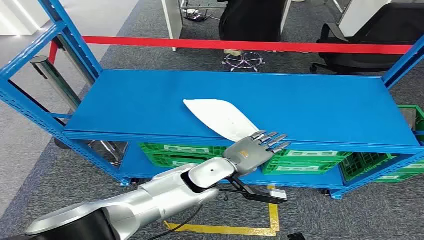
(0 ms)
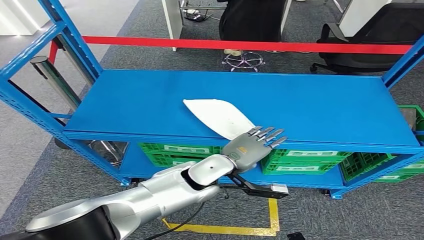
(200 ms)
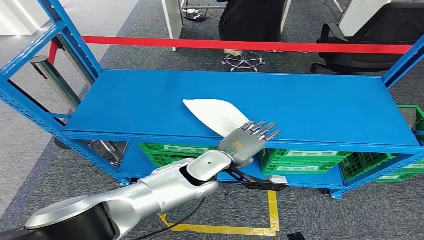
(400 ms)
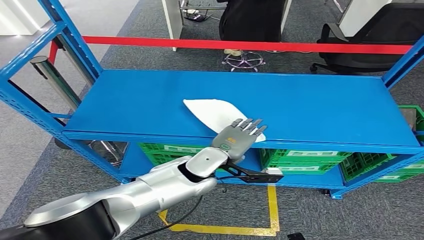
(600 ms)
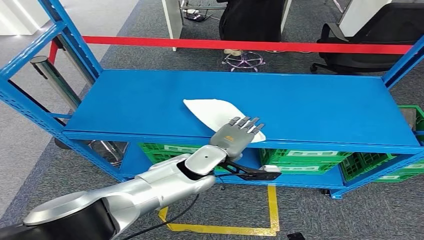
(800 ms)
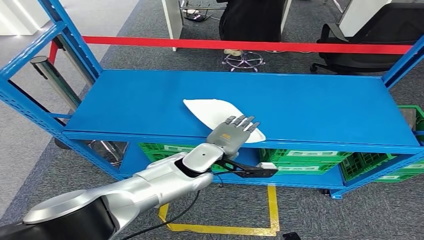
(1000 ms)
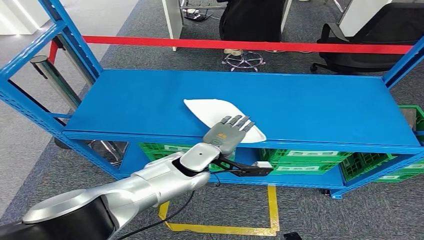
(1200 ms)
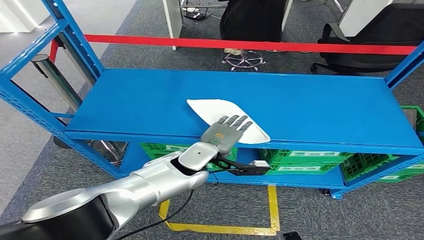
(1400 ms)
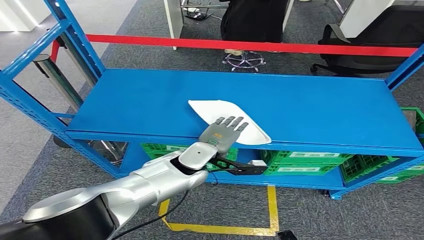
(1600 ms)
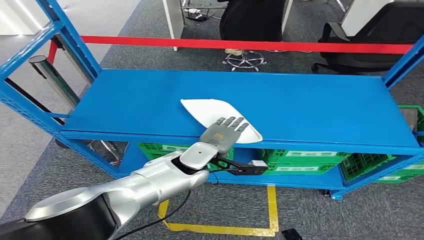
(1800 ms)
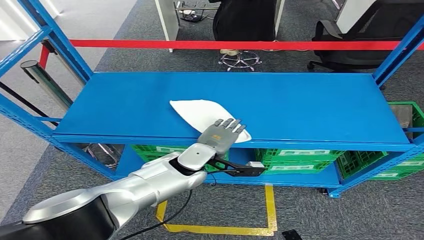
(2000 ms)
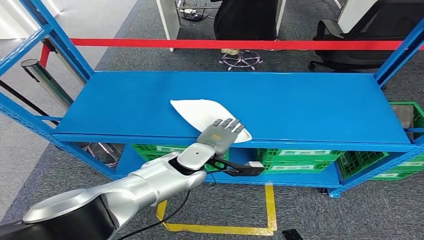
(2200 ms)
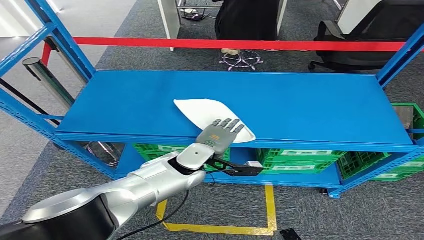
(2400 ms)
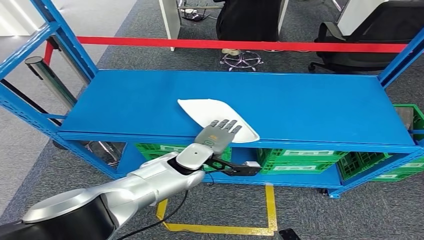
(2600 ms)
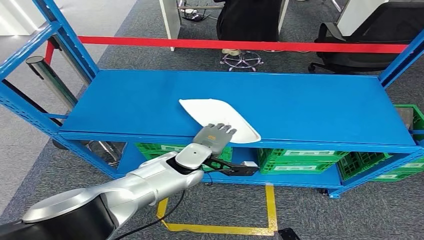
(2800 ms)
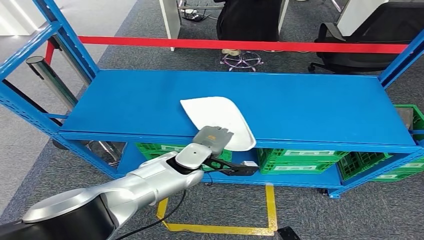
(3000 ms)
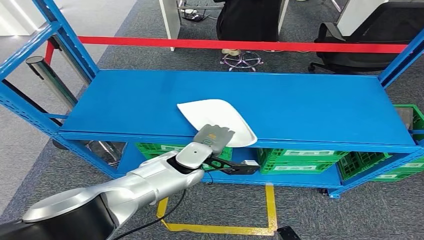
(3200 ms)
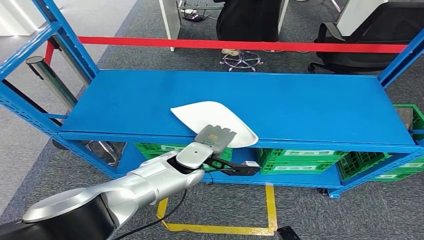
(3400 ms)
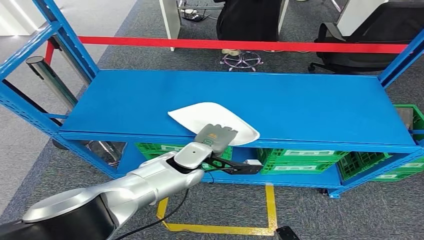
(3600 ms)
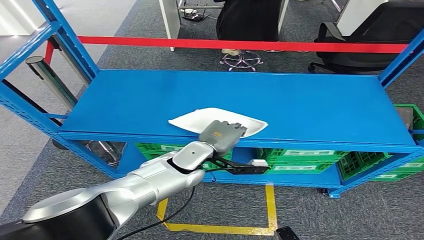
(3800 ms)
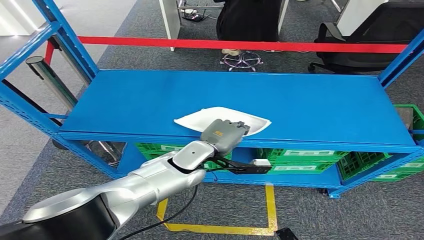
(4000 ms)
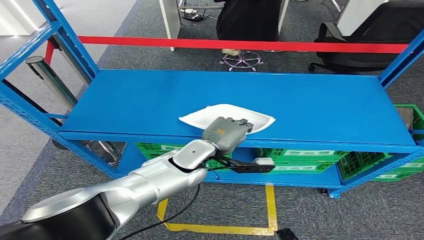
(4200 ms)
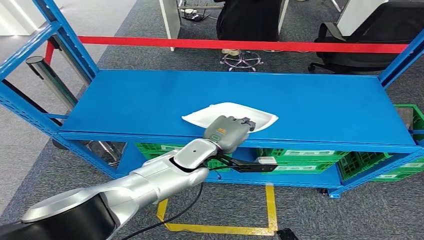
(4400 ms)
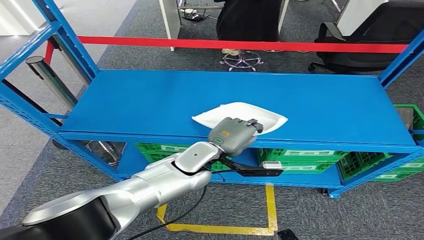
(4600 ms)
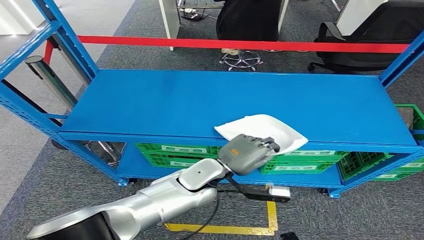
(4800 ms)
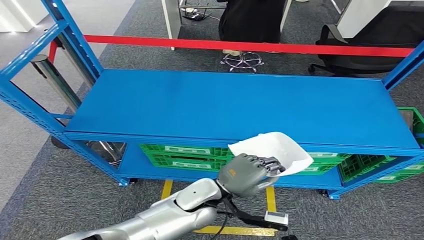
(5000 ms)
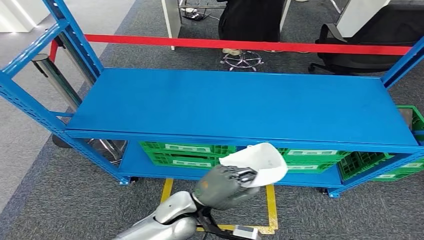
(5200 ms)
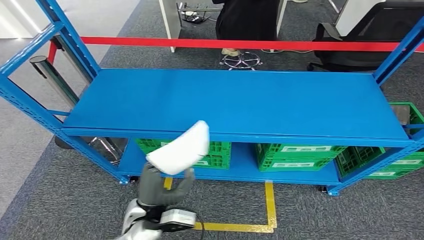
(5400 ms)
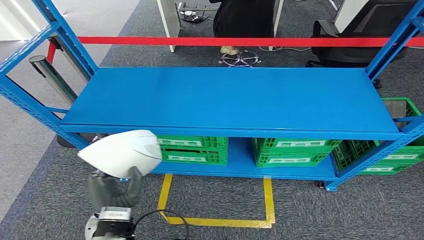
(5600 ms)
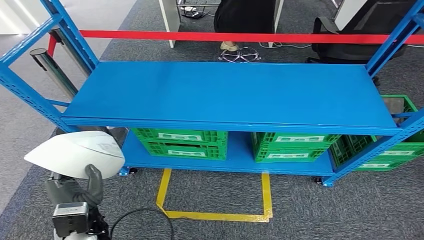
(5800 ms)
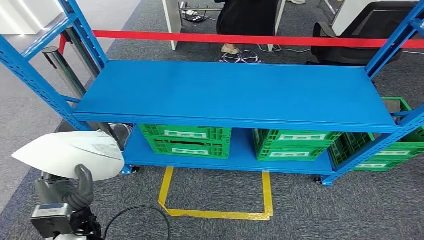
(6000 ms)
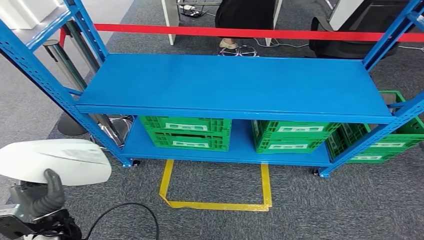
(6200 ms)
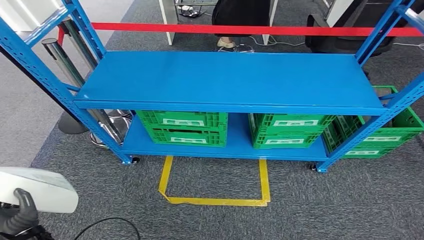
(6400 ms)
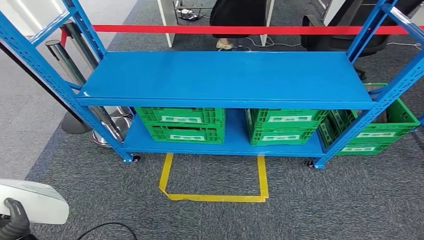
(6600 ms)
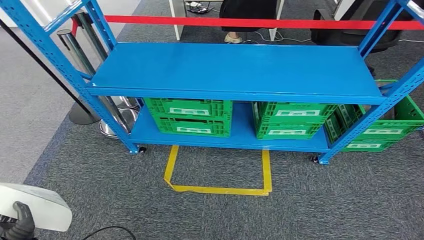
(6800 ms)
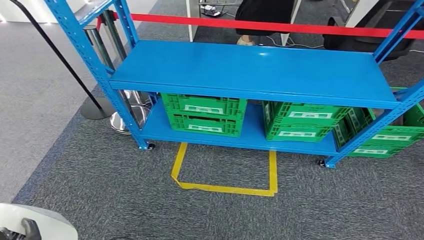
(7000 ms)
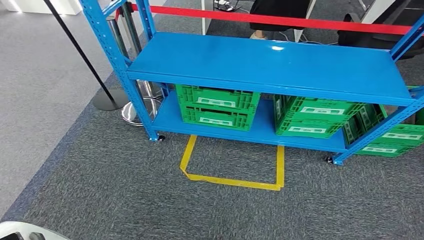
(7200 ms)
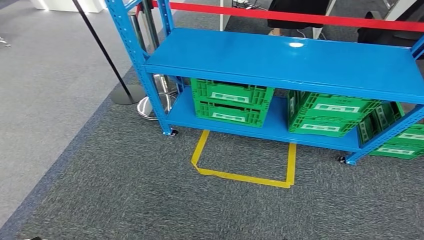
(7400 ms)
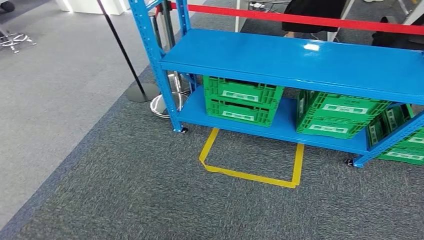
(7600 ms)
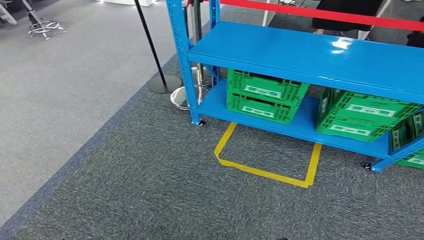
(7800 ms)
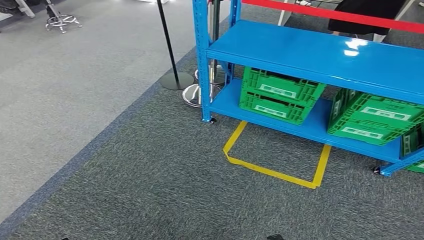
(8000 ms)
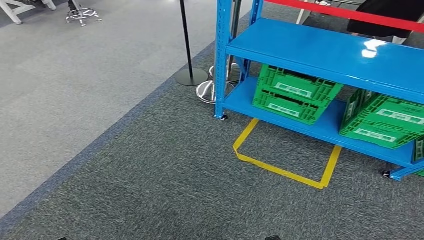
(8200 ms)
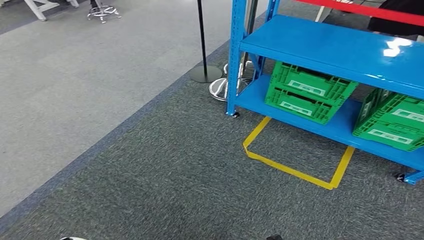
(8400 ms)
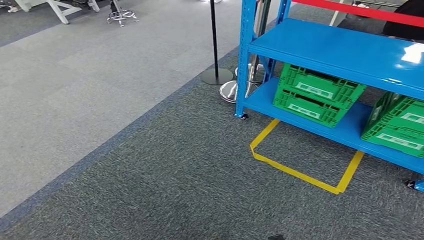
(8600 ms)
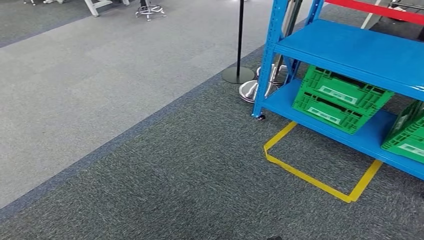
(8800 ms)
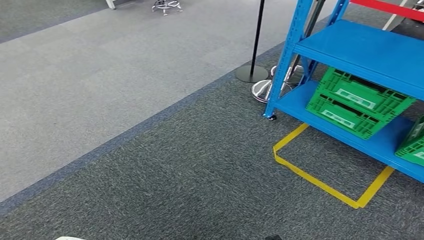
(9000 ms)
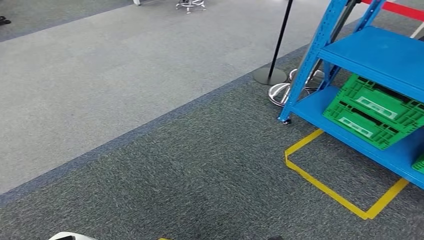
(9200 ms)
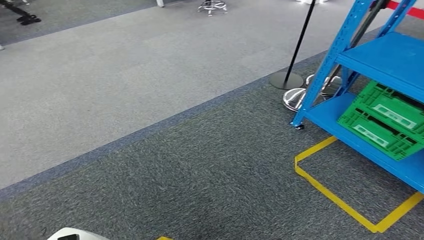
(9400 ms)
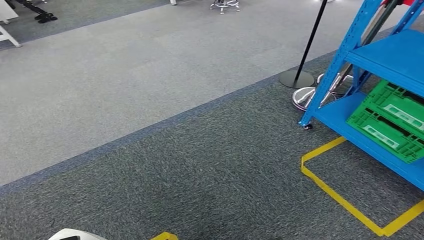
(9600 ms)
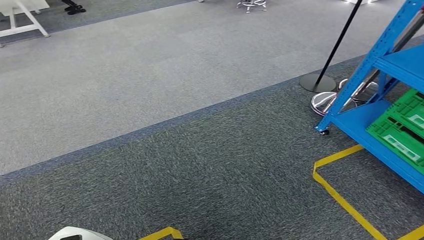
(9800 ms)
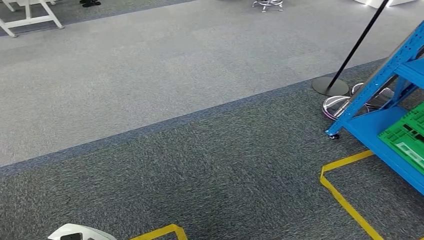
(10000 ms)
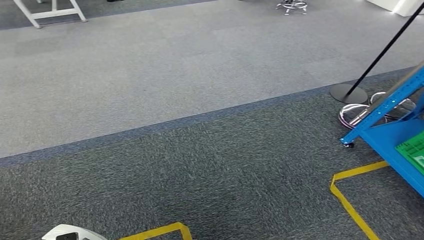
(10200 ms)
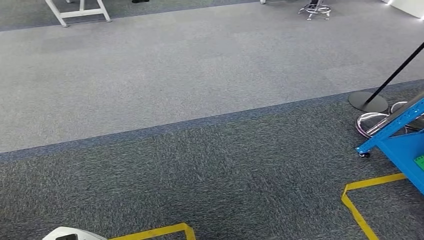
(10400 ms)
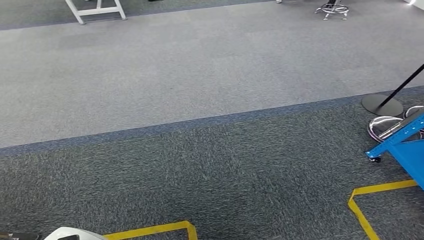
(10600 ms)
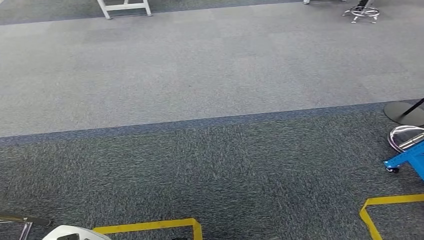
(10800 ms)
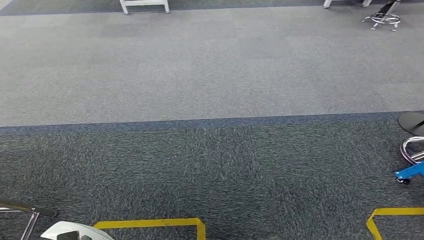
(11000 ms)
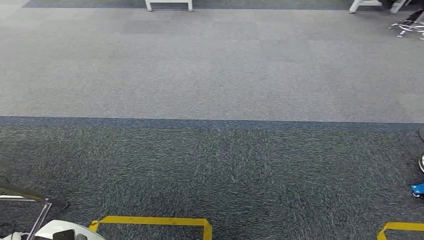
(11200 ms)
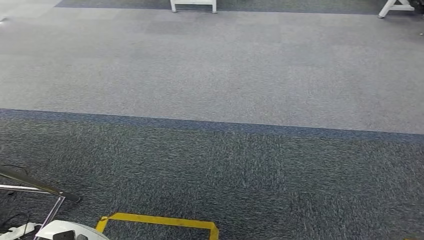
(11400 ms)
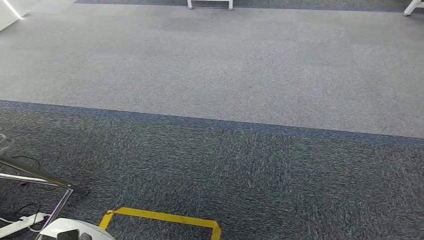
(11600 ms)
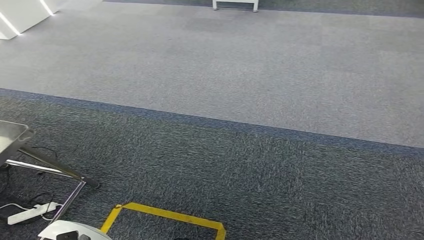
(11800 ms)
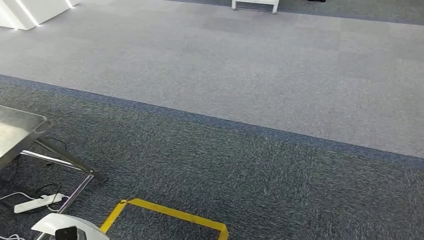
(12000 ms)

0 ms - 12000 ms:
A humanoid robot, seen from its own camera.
Step, 0 ms - 5400 ms: Take small components from the rack.
1600 ms - 3000 ms: The hands stay close to where they were, moving slightly.

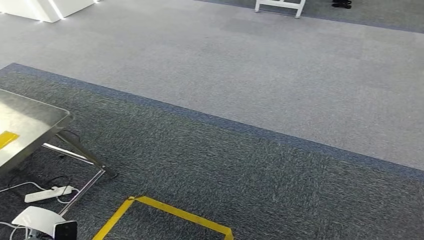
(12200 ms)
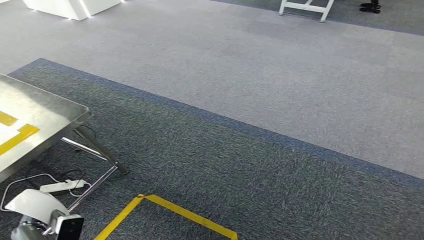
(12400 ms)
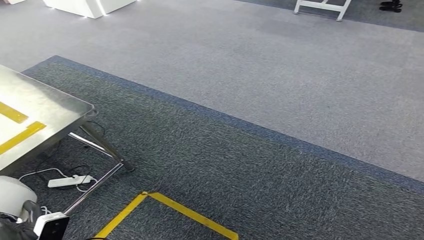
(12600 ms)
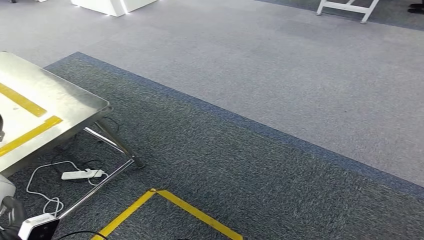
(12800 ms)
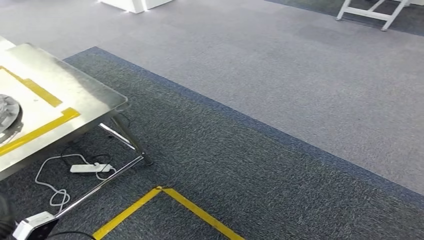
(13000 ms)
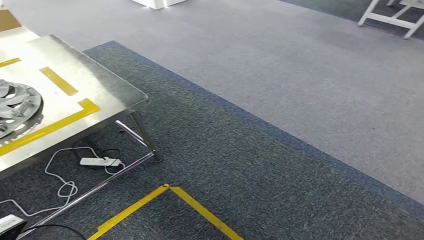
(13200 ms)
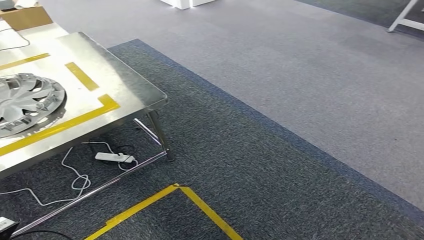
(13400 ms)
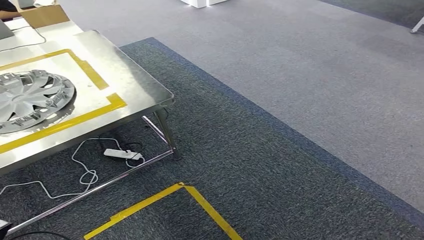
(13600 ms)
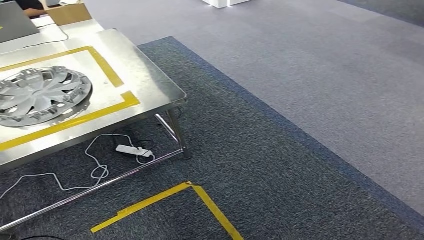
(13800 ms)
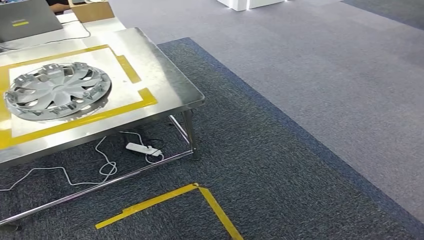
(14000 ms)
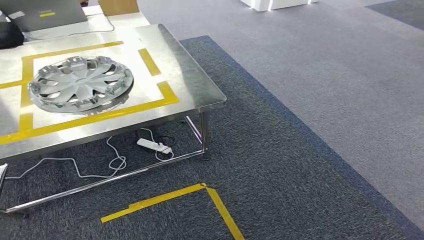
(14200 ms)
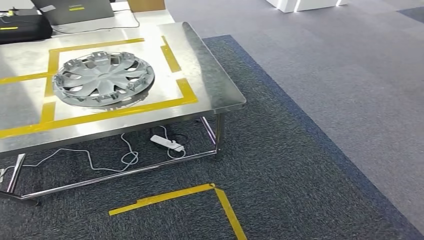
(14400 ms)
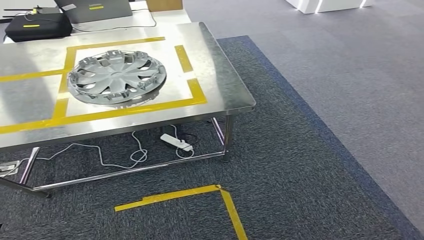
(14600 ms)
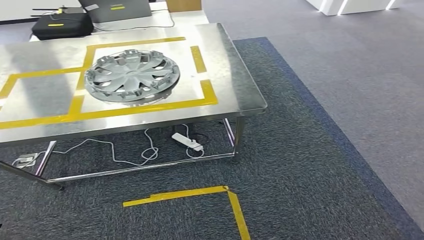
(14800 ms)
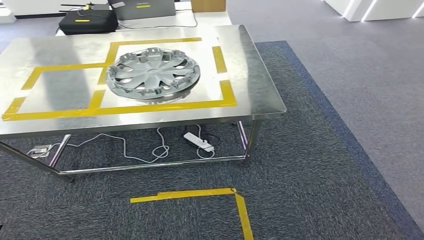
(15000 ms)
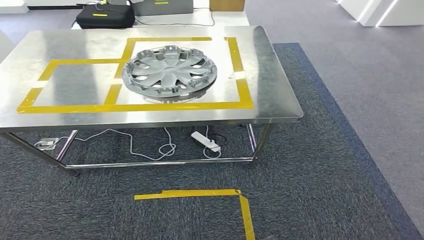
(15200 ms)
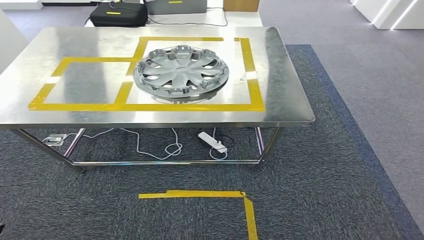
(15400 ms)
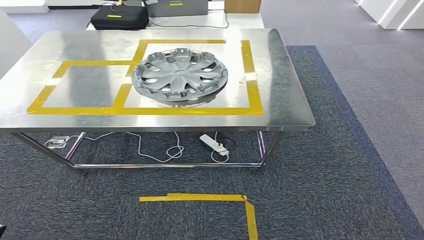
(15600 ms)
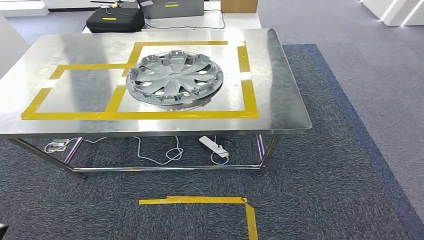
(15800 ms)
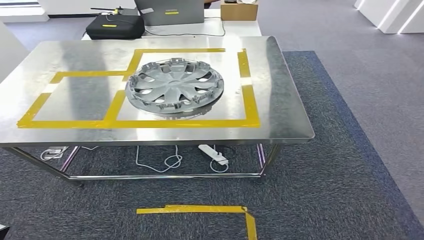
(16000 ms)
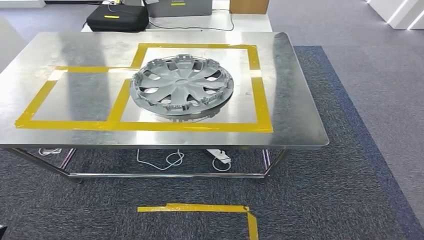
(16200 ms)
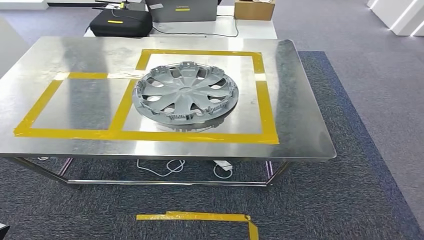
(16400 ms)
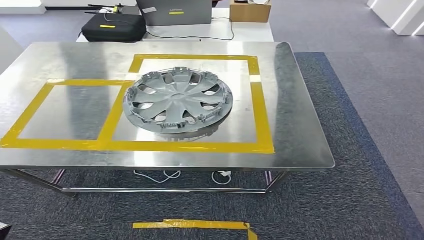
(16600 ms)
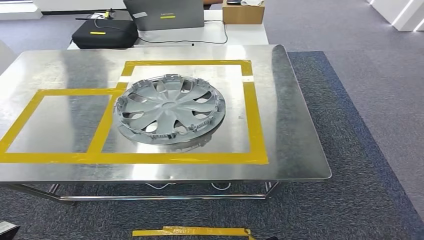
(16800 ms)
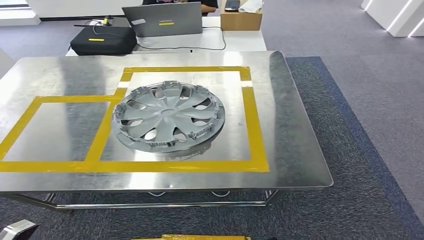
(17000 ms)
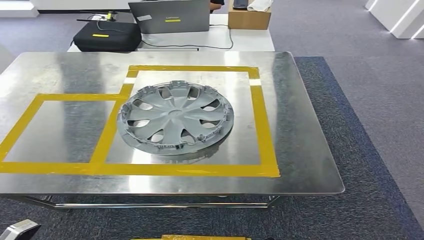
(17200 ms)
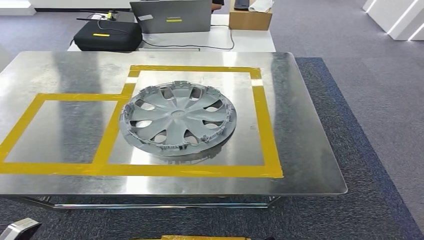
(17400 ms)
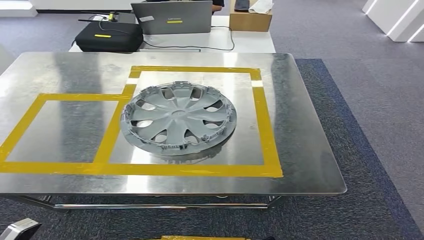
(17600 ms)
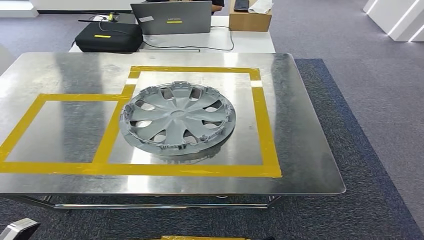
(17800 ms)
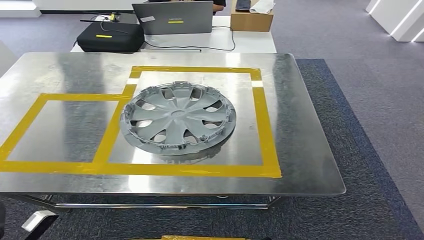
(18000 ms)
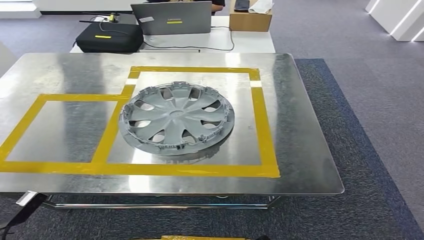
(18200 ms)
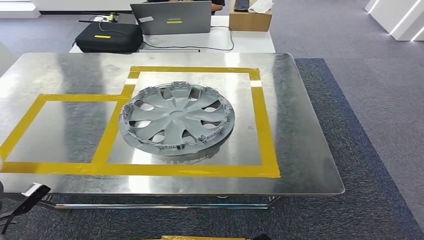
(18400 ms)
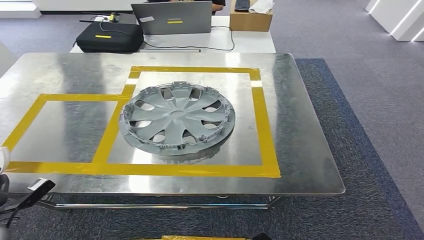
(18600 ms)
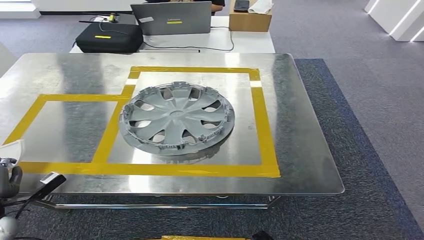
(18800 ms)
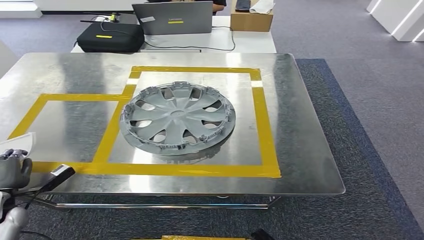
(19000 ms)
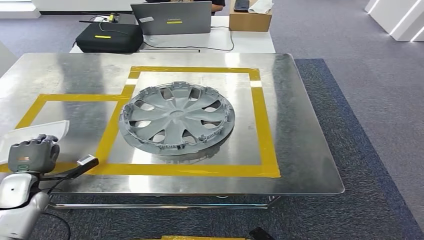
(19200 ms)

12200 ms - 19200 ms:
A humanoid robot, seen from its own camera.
Step, 12200 ms - 18400 ms: Move the small parts to the workbench.
17800 ms - 19200 ms: The left hand heads forward, covering some 20 cm.
